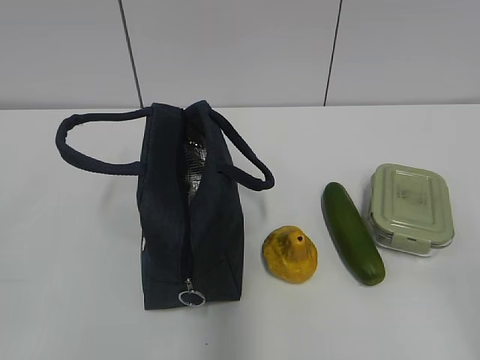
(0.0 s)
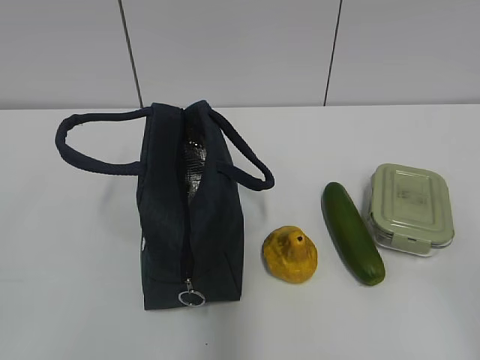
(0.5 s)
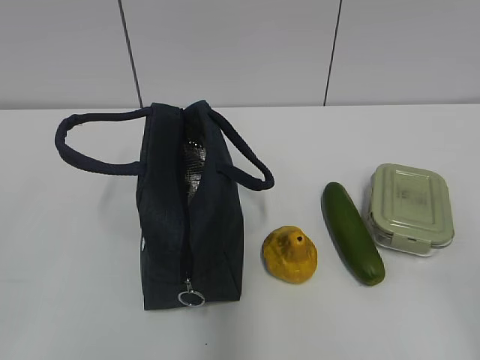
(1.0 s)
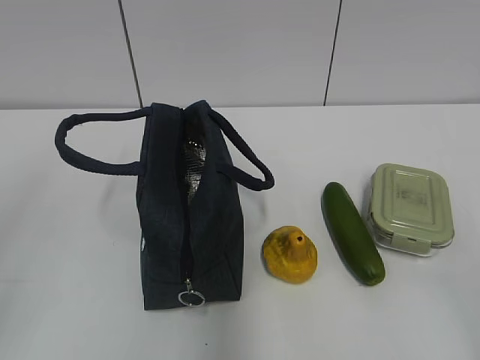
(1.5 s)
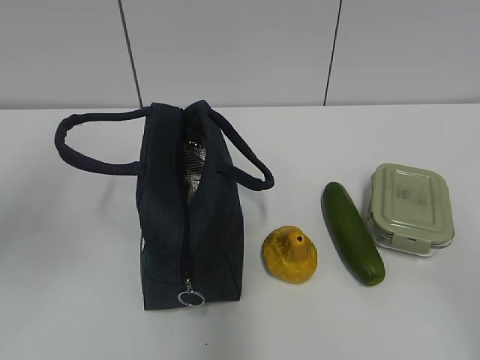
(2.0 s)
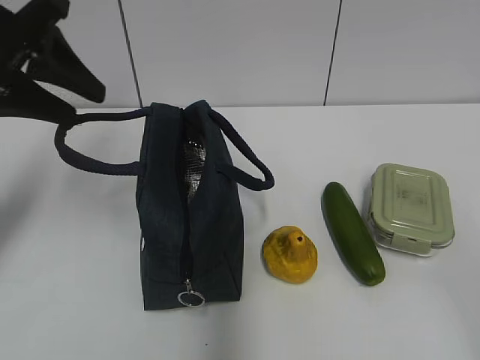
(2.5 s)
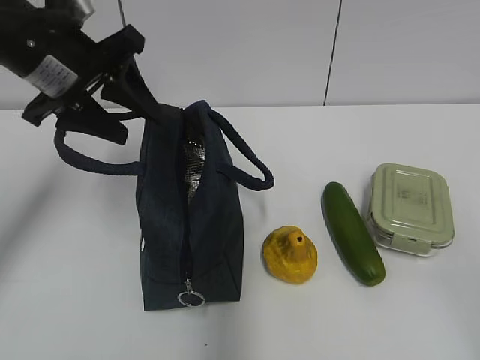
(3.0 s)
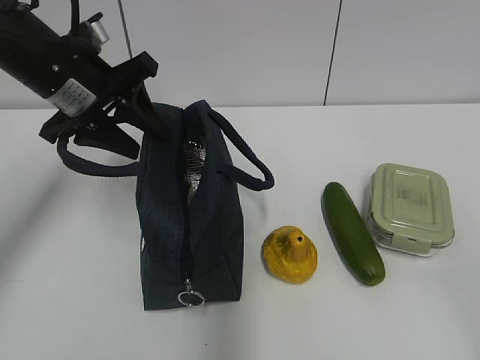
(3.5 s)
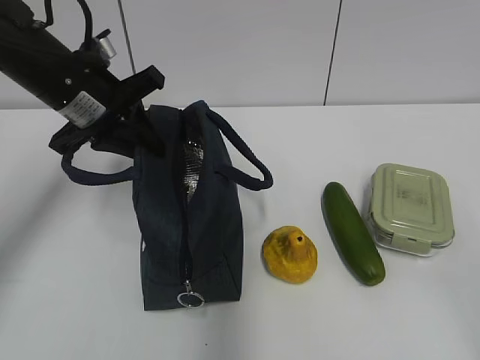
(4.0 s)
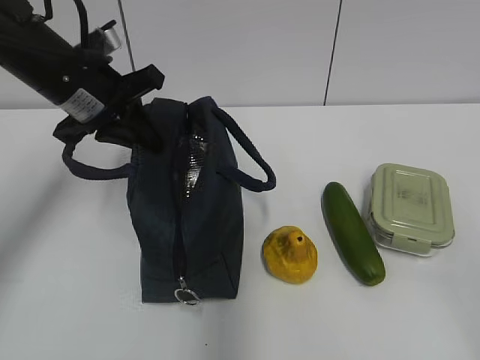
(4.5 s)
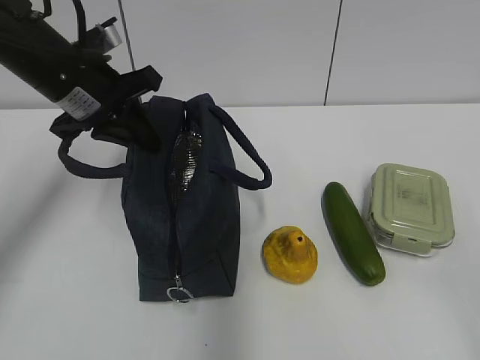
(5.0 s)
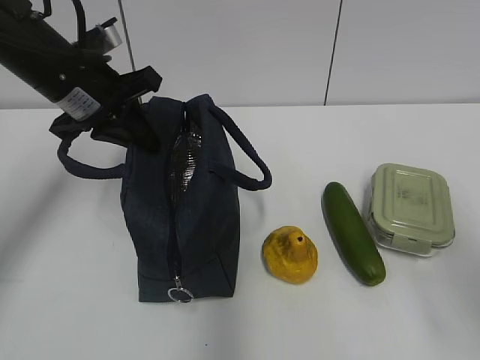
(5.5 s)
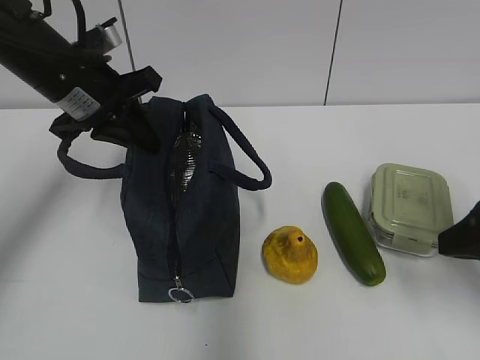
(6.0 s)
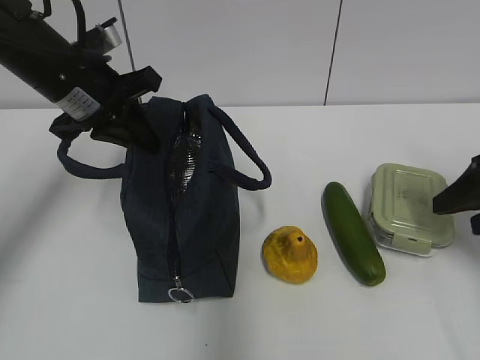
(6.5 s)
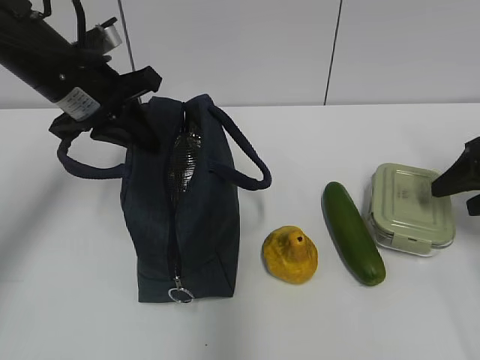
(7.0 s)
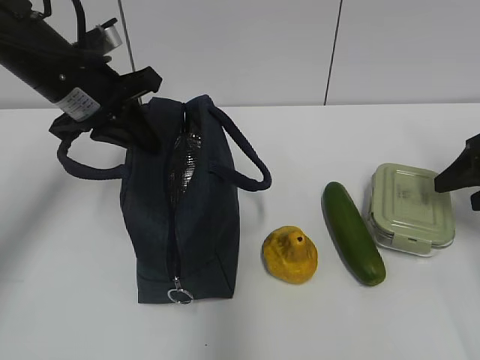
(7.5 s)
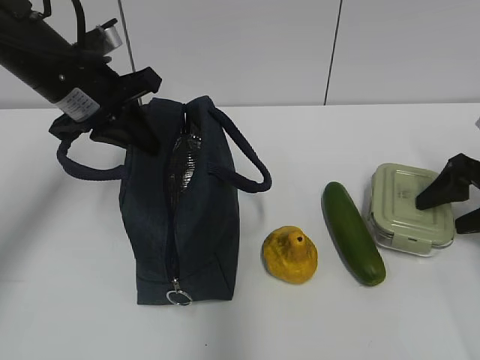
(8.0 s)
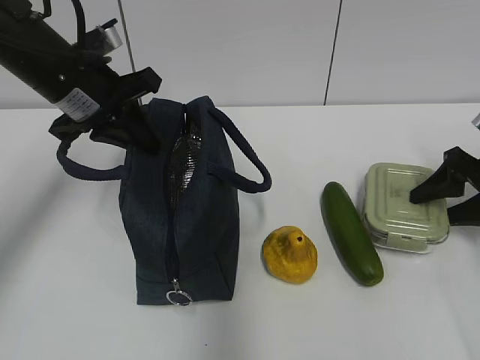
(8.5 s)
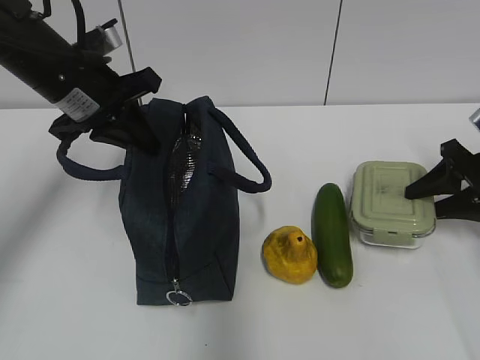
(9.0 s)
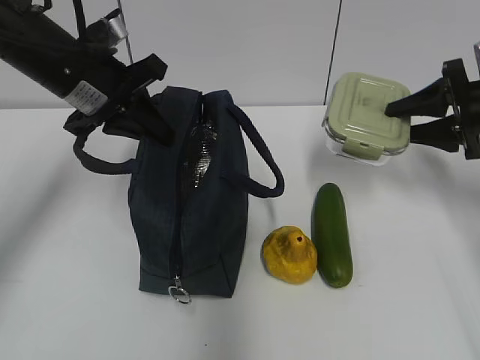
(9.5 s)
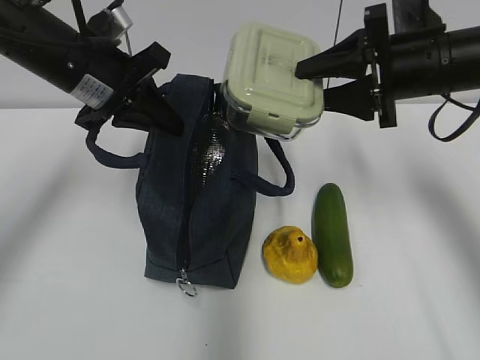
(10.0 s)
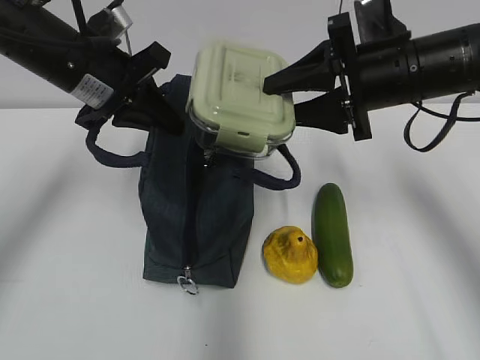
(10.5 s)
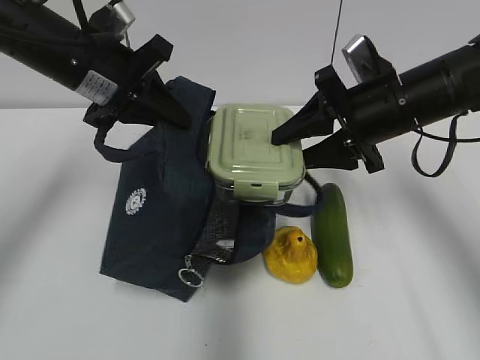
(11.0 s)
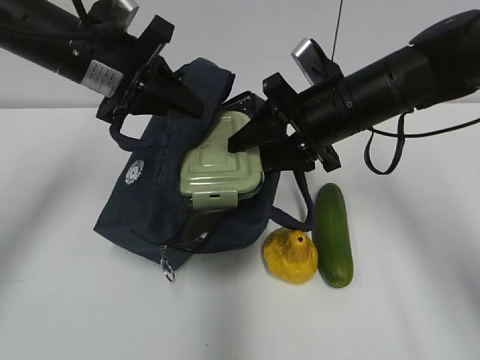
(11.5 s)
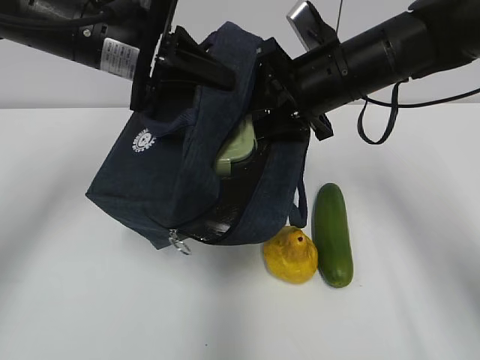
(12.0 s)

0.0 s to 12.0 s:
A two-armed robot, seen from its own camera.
Step, 0.0 to 8.5 s: Grab the lunch box with your right hand.
2.0 to 4.0 s: The left gripper heads forward, downward and to the right, covering about 20 cm, and opens, then closes once more.
4.0 to 6.0 s: The right gripper travels forward by roughly 20 cm.
6.0 to 8.0 s: The right gripper travels forward, to the right and downward by roughly 20 cm.
8.0 to 10.0 s: The right gripper travels to the left and upward by approximately 20 cm, and closes up.
10.0 to 12.0 s: The right gripper travels to the left by some 10 cm.

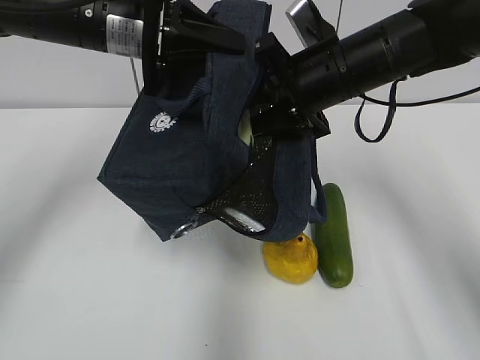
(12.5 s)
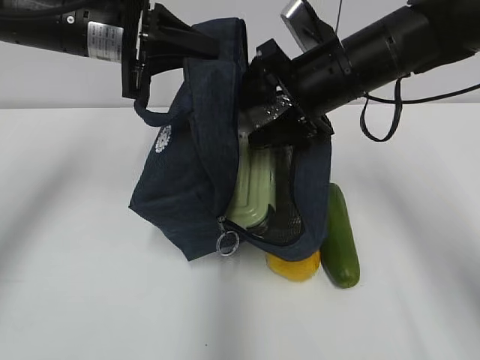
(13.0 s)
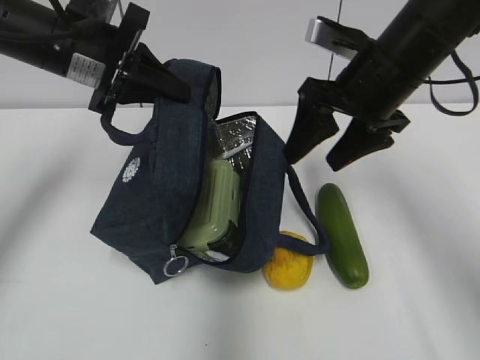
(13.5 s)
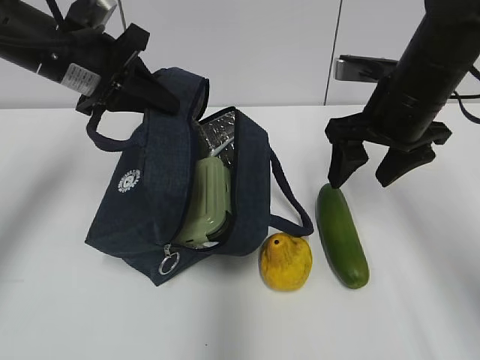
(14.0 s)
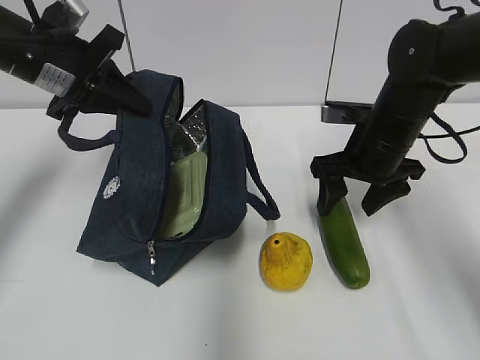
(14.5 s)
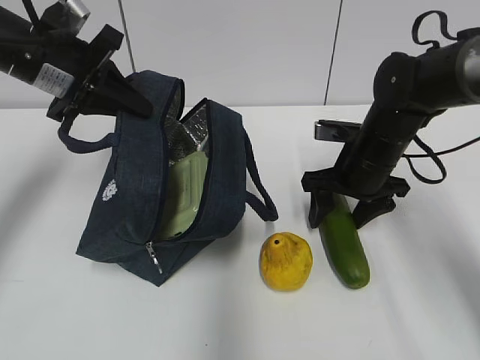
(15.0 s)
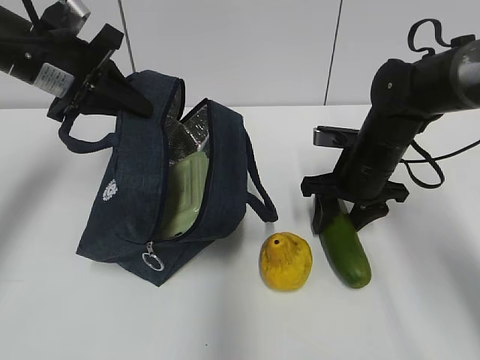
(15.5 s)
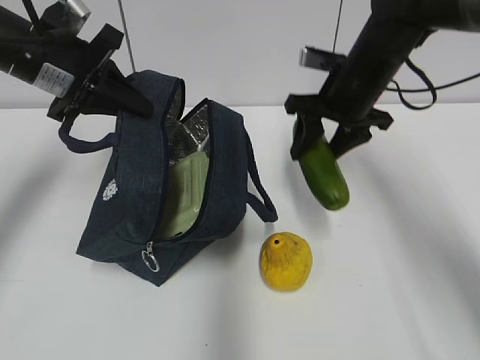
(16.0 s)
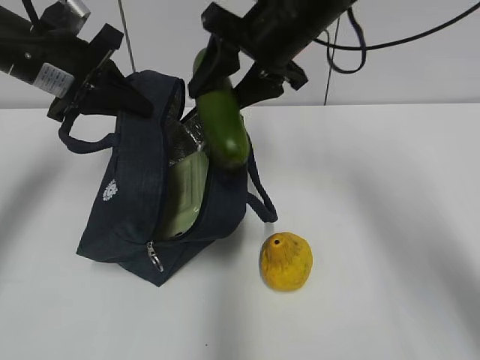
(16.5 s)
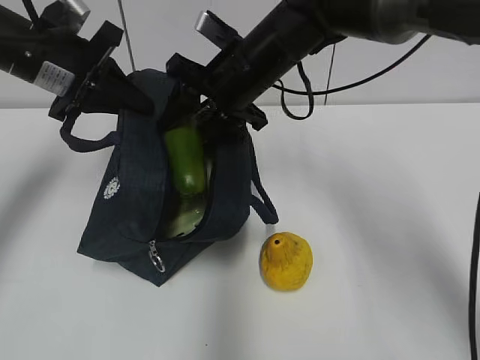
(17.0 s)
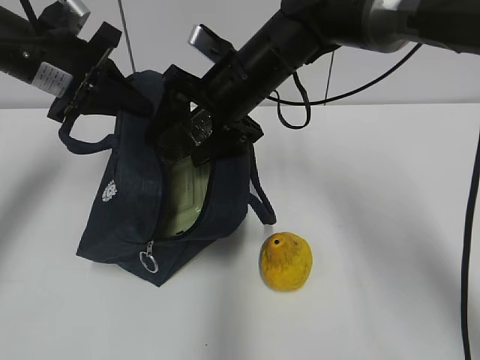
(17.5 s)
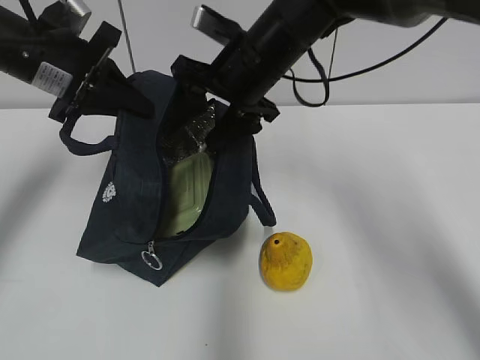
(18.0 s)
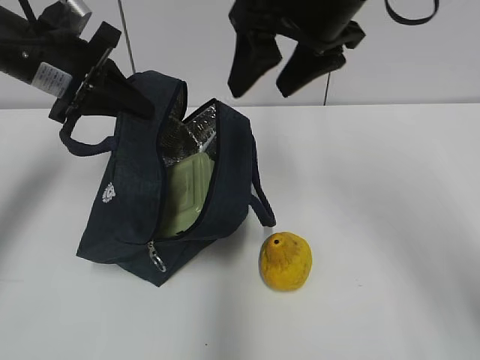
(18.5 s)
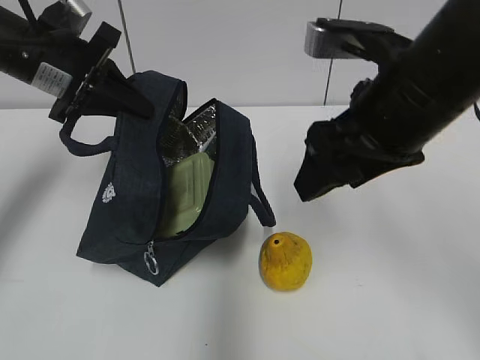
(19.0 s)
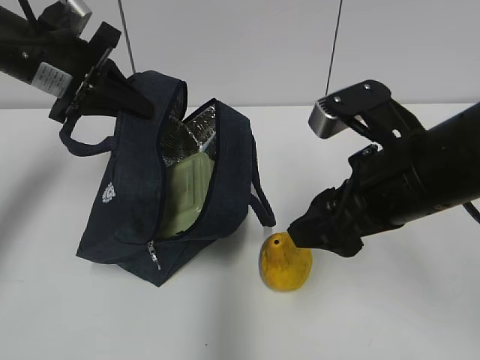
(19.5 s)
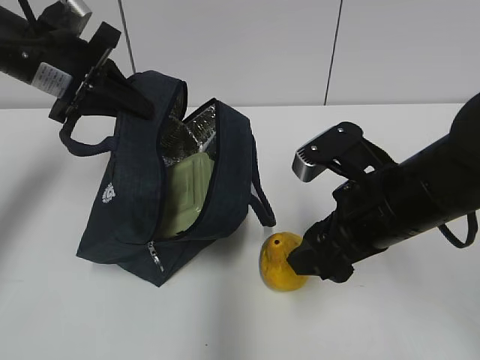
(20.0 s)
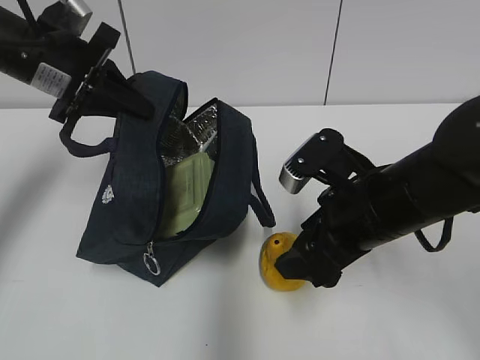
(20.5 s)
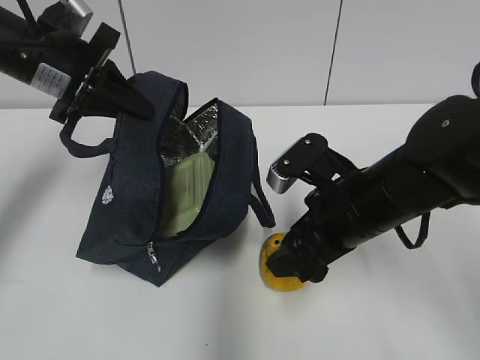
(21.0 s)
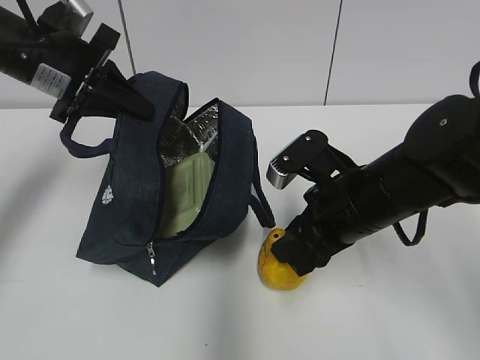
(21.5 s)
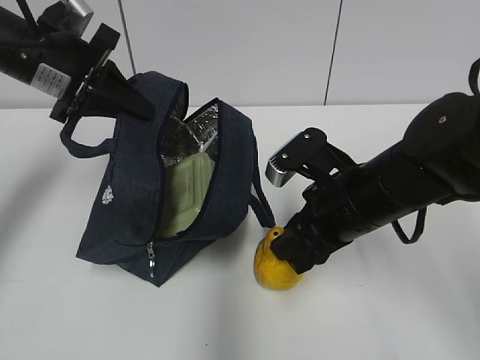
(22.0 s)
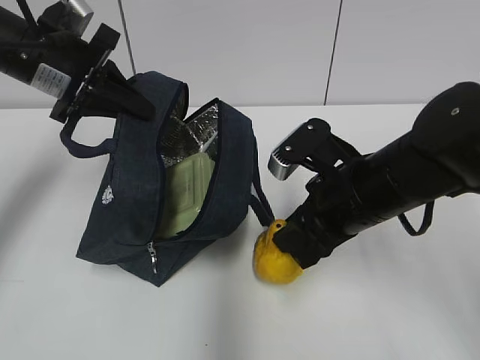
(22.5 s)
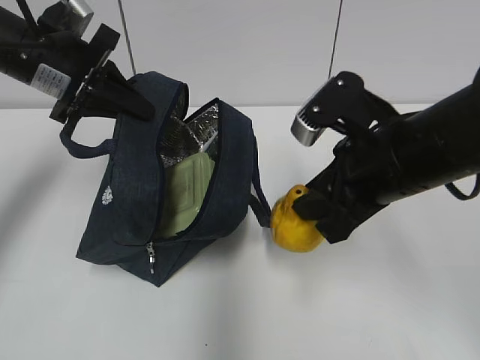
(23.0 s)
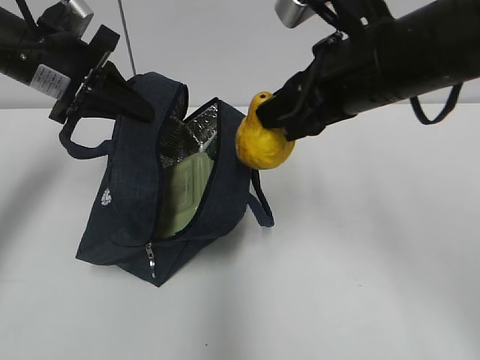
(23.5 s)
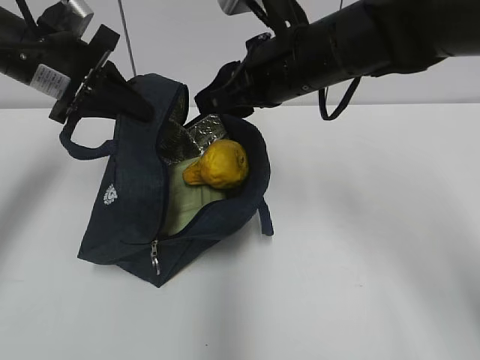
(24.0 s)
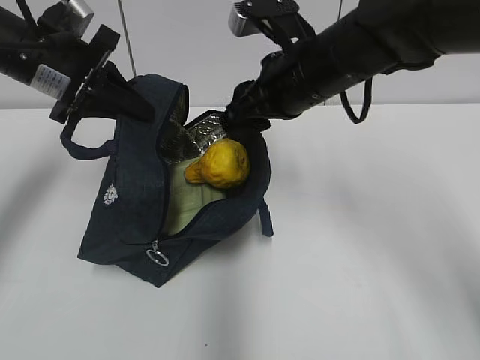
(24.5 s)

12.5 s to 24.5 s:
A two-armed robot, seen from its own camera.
Step, 13.5 to 15.0 s: Grab the cucumber with your right hand.
Step, 15.5 to 17.5 s: Place it into the bag with your right hand.
Step, 18.0 to 21.5 s: Grab the pear with your right hand.
12.5 to 14.5 s: The left gripper moves to the left, roughly 10 cm; the right gripper heads downward and to the right, covering about 10 cm, and opens its fingers.
14.5 to 16.5 s: The right gripper heads upward and to the left, covering some 15 cm.
16.5 to 18.5 s: The right gripper goes some 5 cm backward.
18.5 to 20.5 s: The right gripper is displaced downward and backward by about 20 cm.
20.5 to 22.5 s: The right gripper closes its fingers.
22.5 to 24.5 s: The right gripper shifts about 10 cm forward and upward.

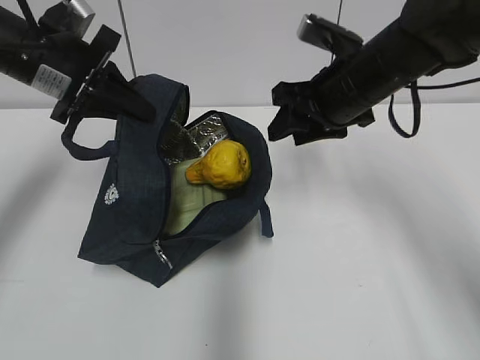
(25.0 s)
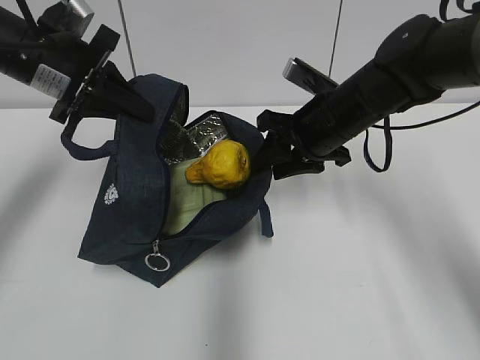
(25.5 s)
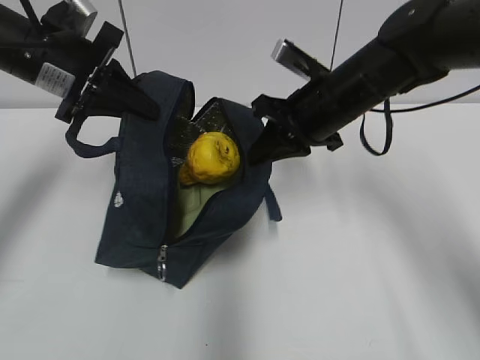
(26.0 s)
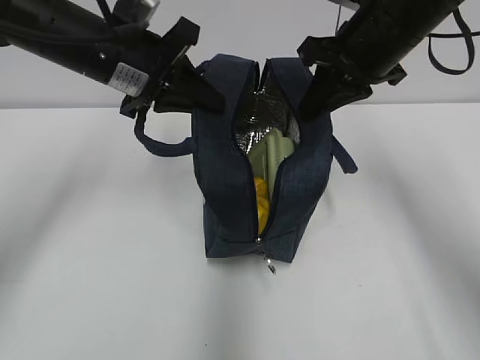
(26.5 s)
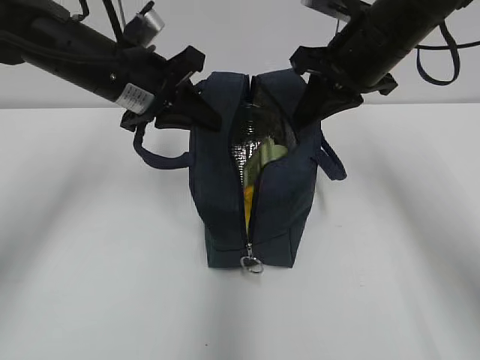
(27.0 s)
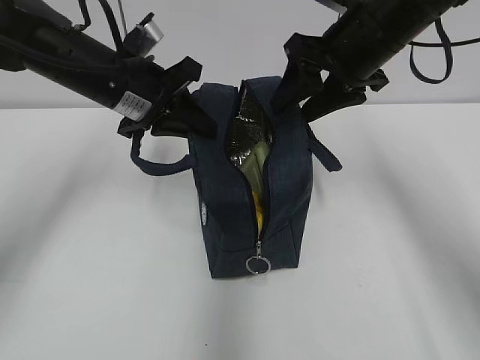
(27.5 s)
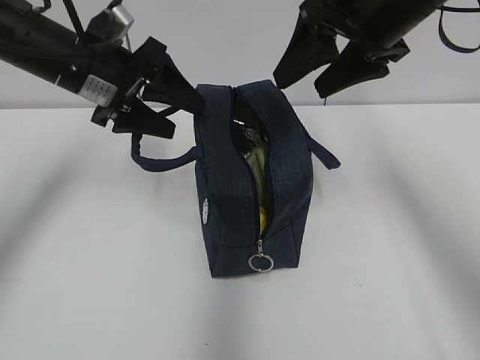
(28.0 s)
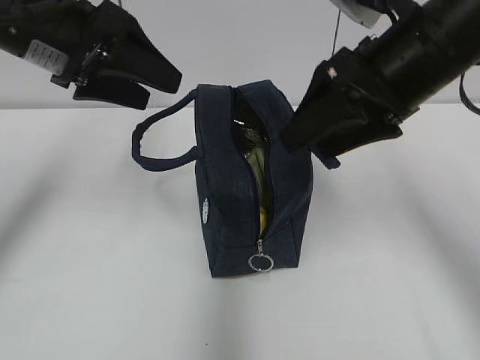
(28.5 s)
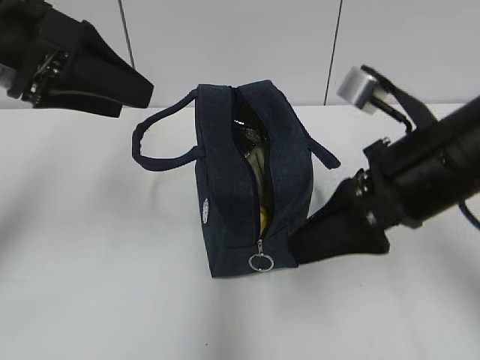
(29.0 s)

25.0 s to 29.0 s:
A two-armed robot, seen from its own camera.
Step, 26.0 to 27.5 s: Move the lunch bag to the right.
25.0 to 27.0 s: The left gripper travels to the right by roughly 10 cm. The right gripper shifts by some 5 cm, and closes.
27.0 to 29.0 s: The left gripper heads backward, upward and to the left, covering approximately 15 cm, and opens, while the right gripper moves backward, some 15 cm, and opens.
